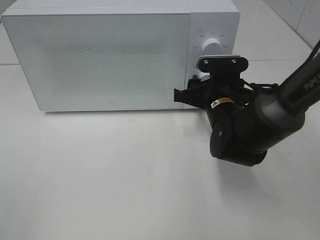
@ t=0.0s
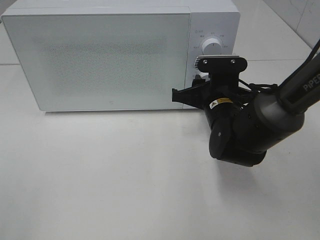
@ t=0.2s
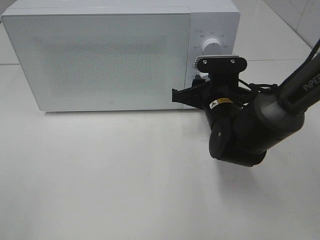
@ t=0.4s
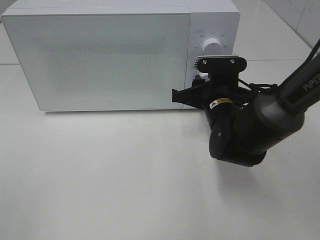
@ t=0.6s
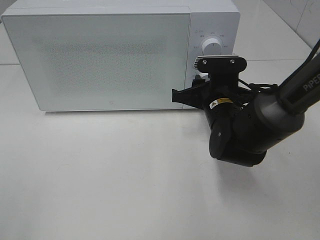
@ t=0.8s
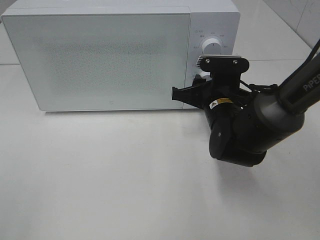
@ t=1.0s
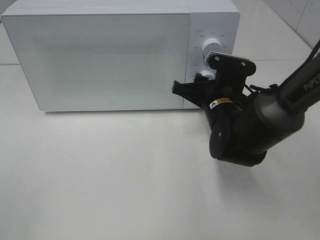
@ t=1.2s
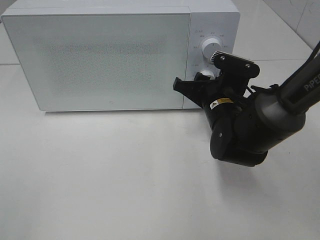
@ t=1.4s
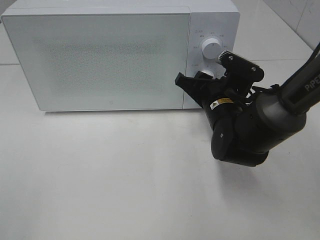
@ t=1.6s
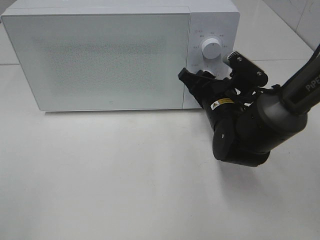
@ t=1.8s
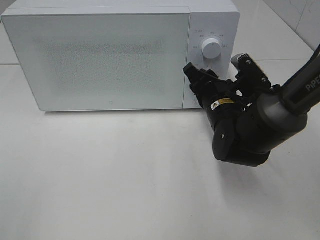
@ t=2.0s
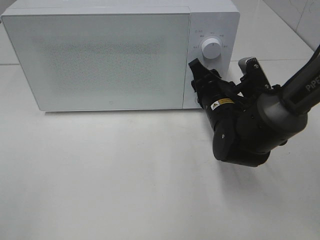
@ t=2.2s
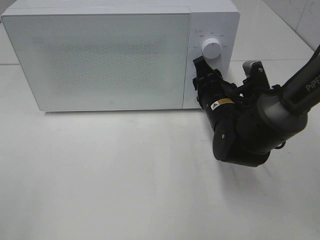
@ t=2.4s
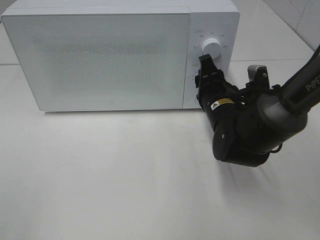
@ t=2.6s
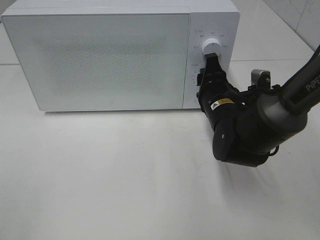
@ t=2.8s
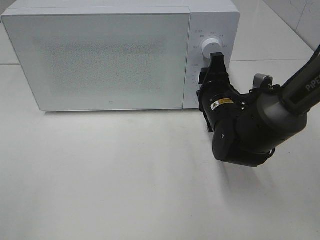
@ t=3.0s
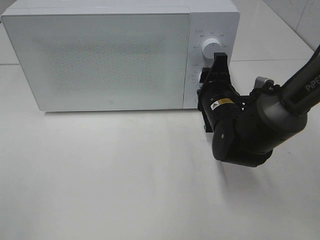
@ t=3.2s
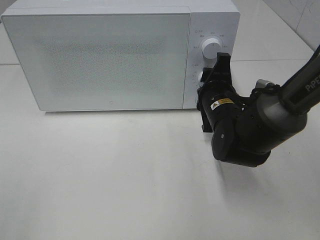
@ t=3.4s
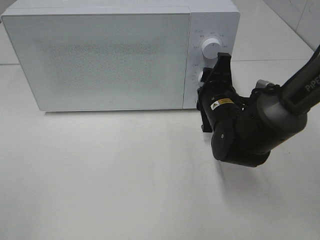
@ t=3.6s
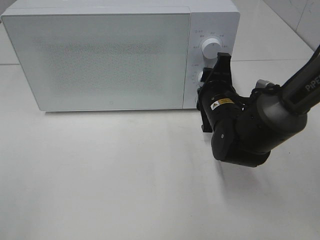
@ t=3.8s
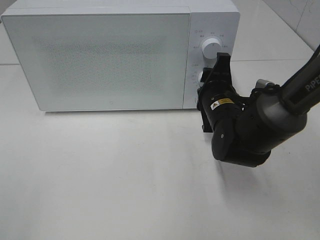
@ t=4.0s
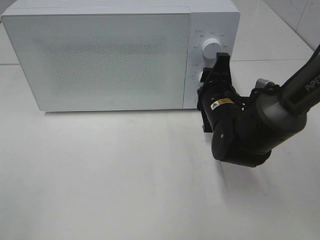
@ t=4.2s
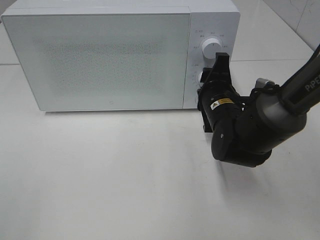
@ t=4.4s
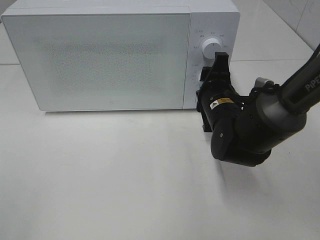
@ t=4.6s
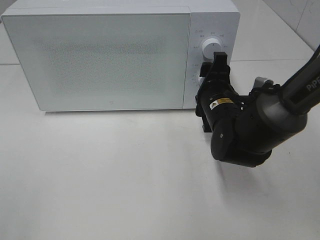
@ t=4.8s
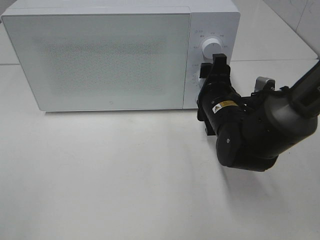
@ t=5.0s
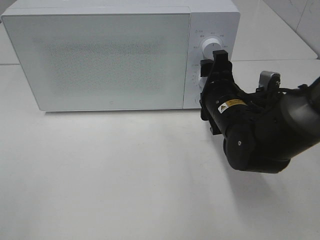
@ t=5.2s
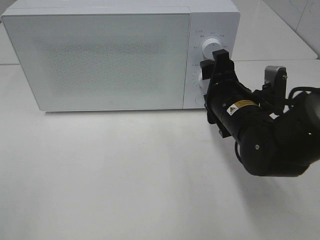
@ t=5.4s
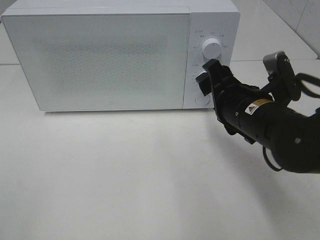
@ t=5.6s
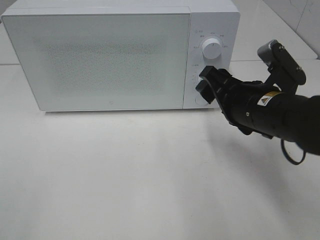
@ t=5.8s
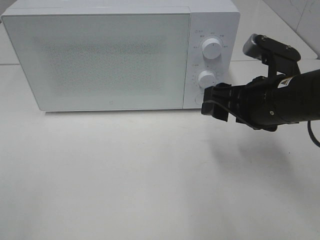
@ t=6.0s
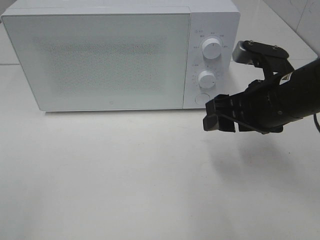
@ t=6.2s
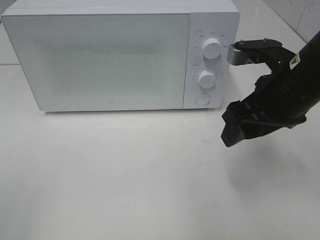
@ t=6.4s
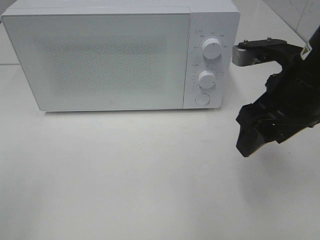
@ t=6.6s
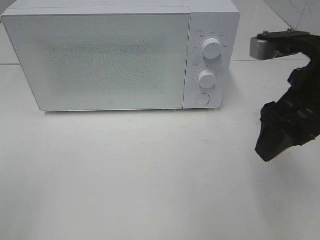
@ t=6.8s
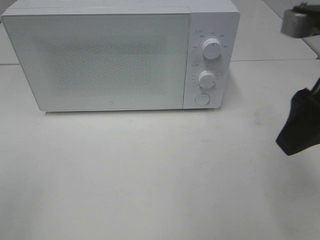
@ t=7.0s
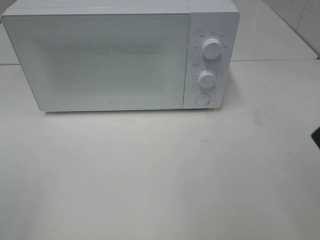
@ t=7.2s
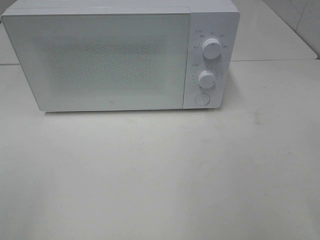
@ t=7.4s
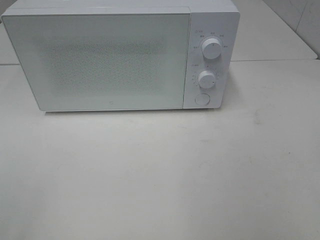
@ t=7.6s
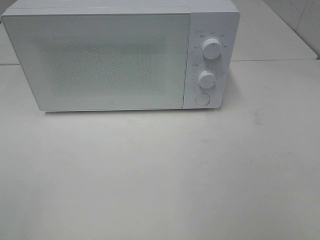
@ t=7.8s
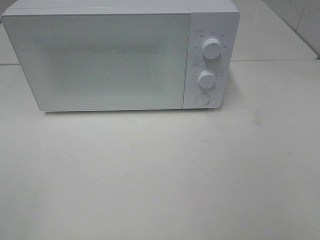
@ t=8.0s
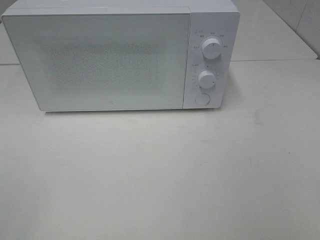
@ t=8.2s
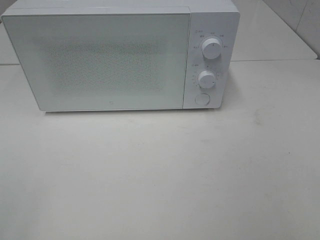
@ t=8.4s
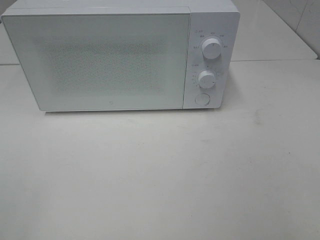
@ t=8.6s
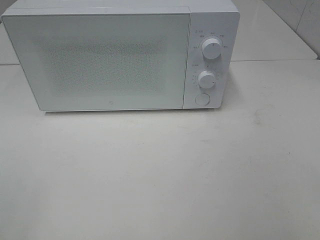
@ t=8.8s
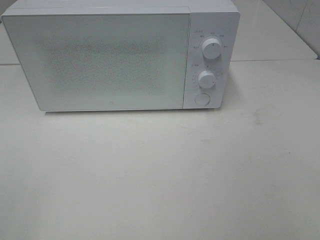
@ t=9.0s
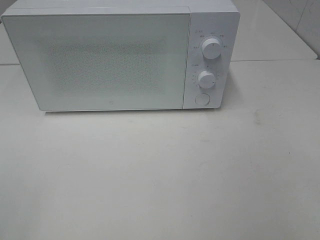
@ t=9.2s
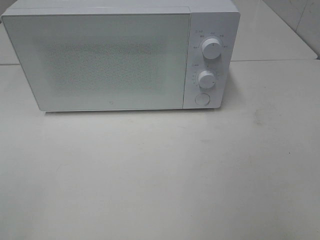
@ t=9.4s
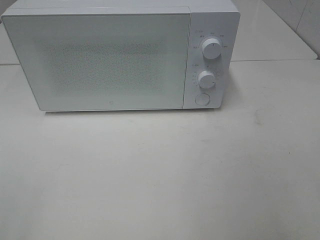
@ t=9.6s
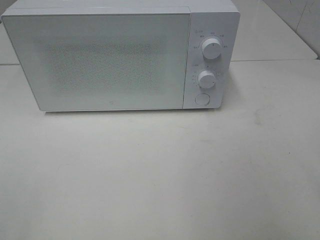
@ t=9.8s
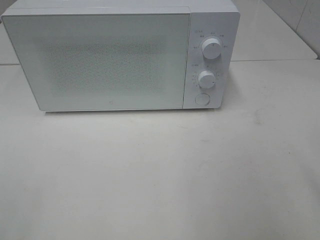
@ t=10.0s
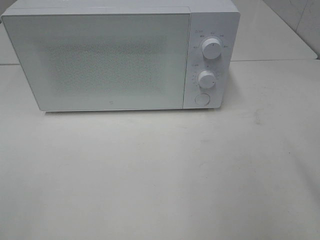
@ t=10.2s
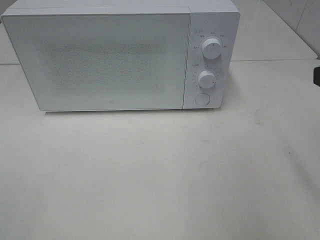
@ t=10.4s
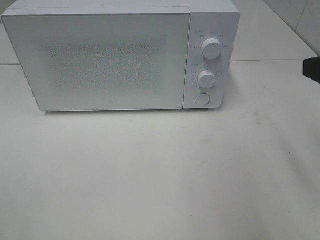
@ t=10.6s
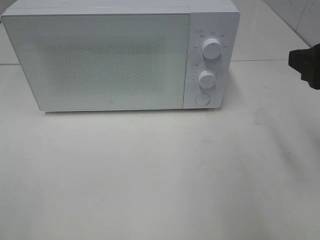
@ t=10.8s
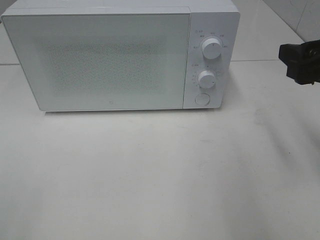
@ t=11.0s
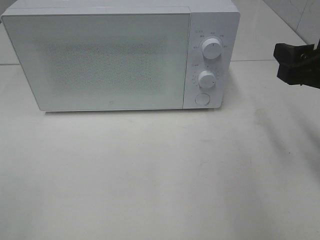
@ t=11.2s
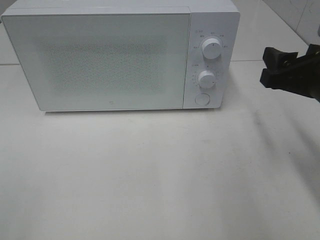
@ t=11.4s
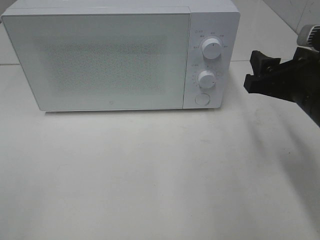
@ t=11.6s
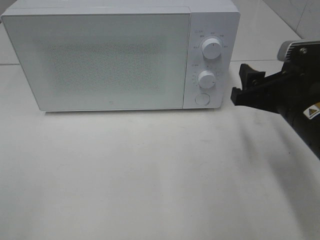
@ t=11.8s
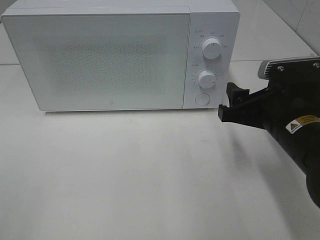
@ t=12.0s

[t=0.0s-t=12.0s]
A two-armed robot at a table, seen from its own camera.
Task of the whole recording: Heat the burger.
Step, t=0.0s to t=4.8s: Right hand: twist timer button.
t=3.0s to t=4.4s: There are only small adjustments of the grippers.
t=4.4s to t=6.0s: The right gripper goes some 10 cm upward and backward.
t=6.0s to t=7.6s: The right gripper moves backward, upward and to the right, roughly 25 cm.
t=10.4s to t=12.0s: The right gripper travels downward, to the left and forward by roughly 15 cm.

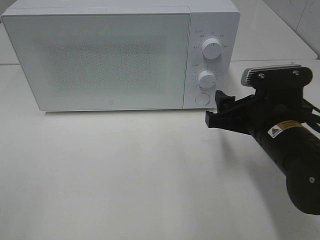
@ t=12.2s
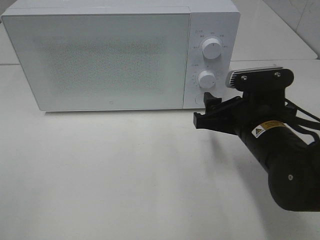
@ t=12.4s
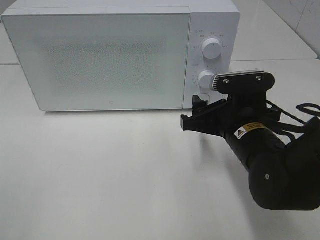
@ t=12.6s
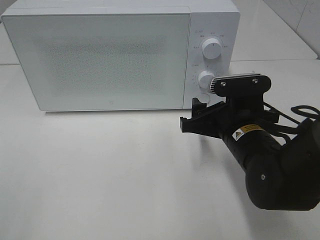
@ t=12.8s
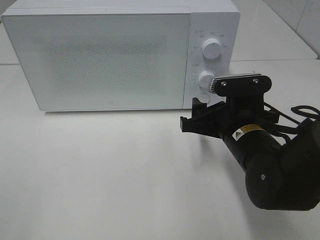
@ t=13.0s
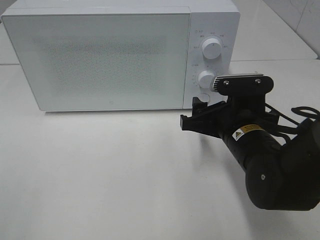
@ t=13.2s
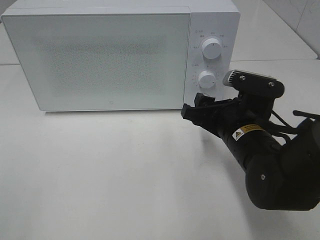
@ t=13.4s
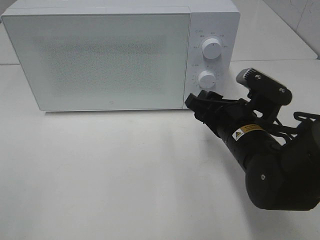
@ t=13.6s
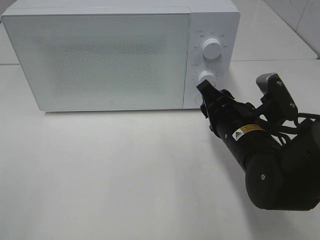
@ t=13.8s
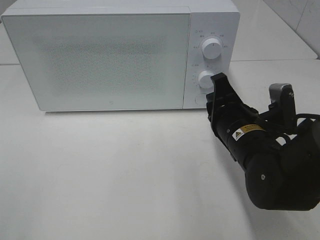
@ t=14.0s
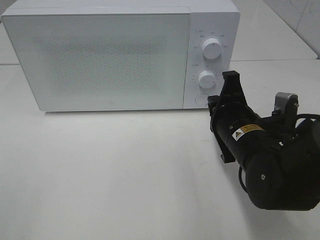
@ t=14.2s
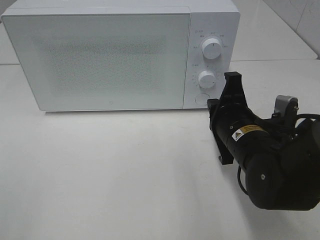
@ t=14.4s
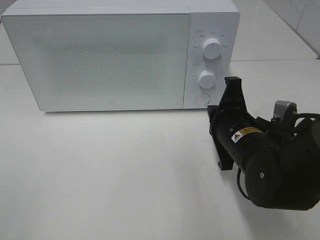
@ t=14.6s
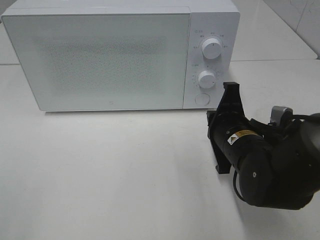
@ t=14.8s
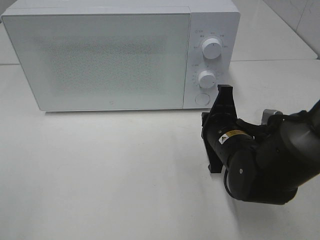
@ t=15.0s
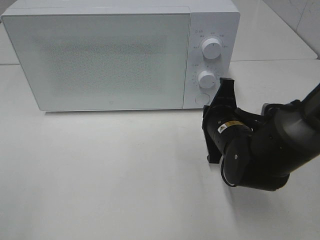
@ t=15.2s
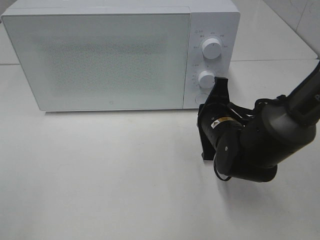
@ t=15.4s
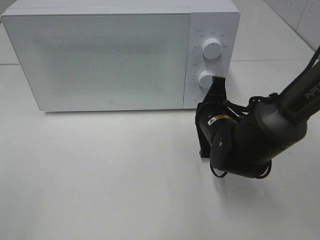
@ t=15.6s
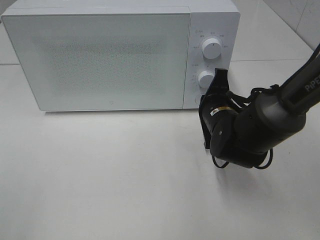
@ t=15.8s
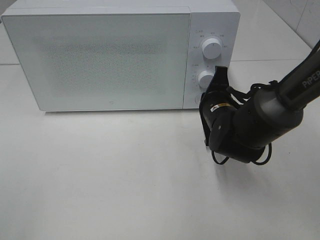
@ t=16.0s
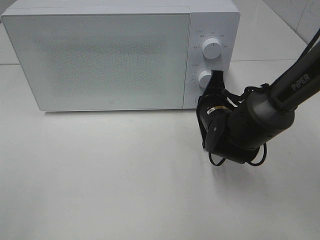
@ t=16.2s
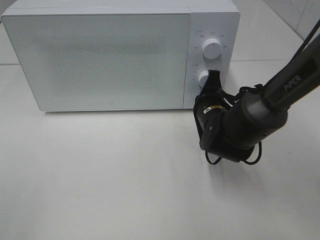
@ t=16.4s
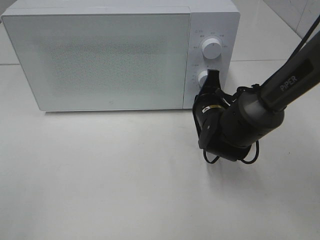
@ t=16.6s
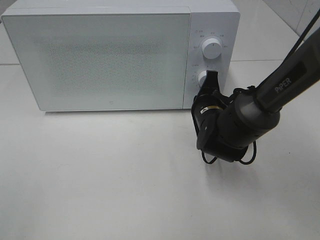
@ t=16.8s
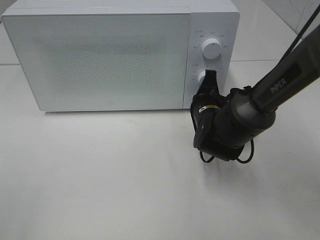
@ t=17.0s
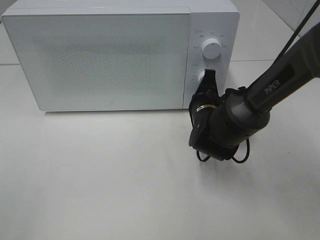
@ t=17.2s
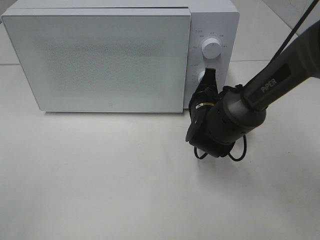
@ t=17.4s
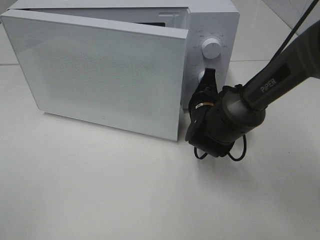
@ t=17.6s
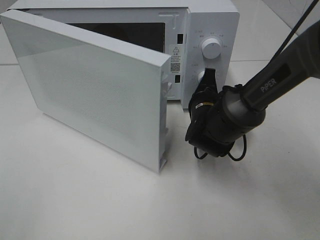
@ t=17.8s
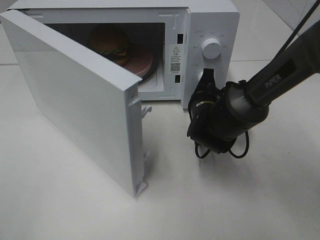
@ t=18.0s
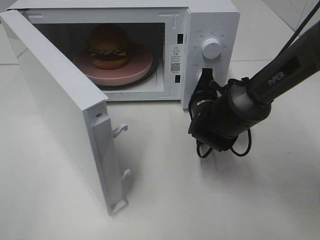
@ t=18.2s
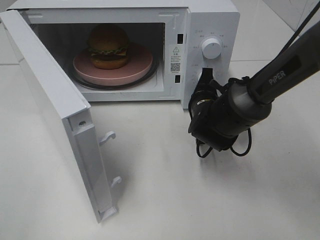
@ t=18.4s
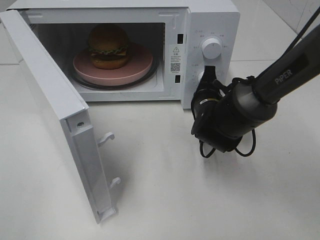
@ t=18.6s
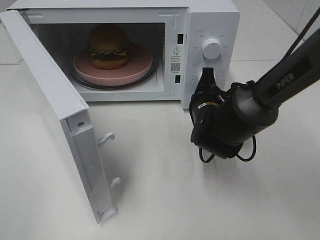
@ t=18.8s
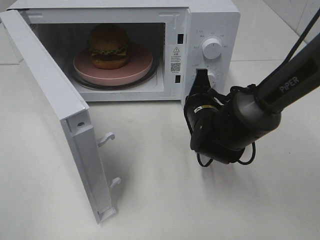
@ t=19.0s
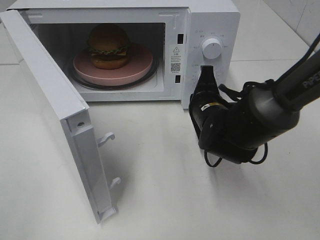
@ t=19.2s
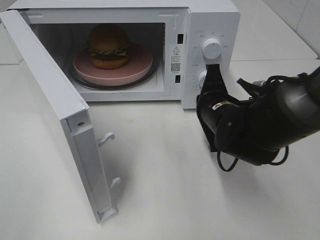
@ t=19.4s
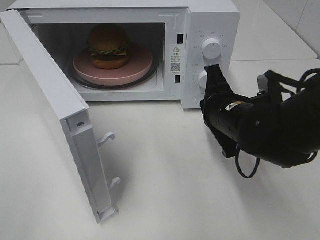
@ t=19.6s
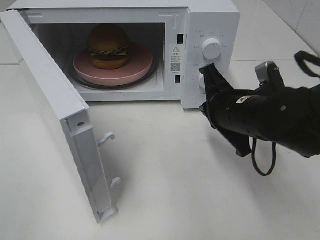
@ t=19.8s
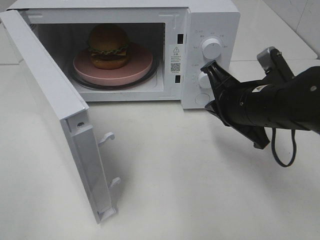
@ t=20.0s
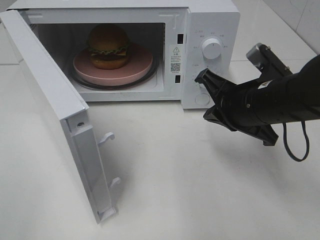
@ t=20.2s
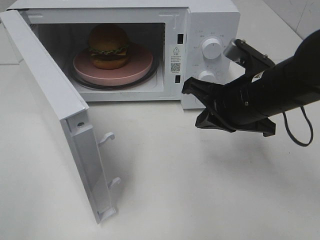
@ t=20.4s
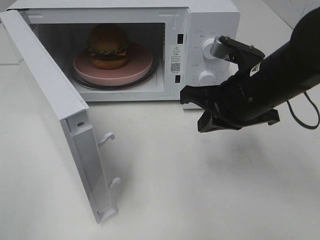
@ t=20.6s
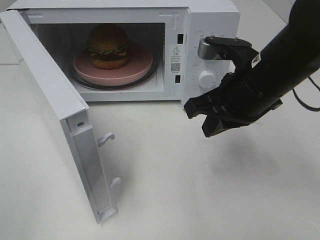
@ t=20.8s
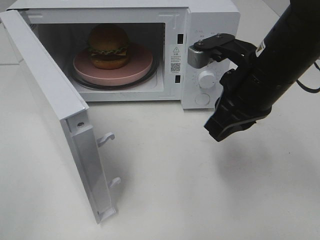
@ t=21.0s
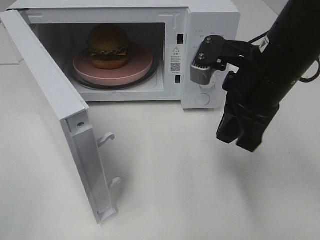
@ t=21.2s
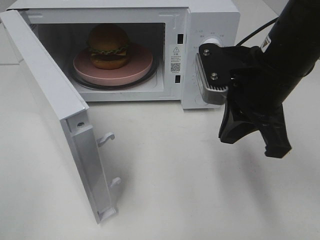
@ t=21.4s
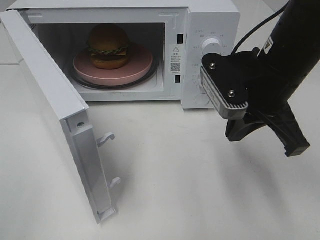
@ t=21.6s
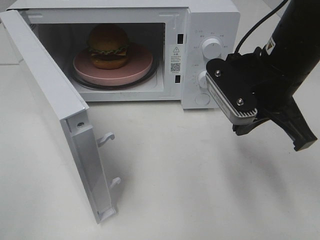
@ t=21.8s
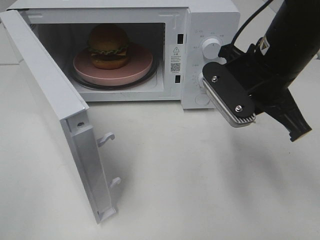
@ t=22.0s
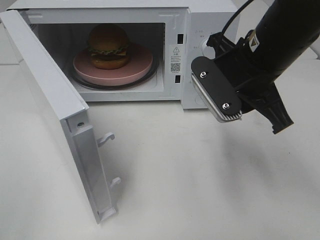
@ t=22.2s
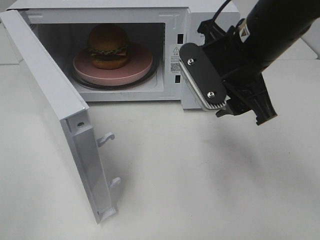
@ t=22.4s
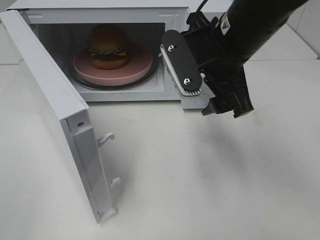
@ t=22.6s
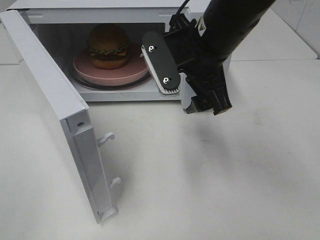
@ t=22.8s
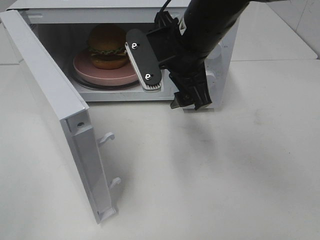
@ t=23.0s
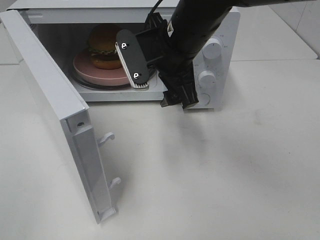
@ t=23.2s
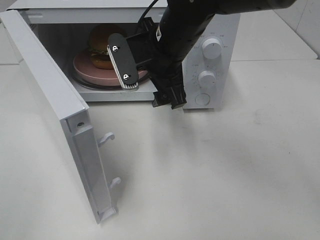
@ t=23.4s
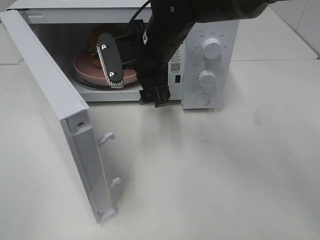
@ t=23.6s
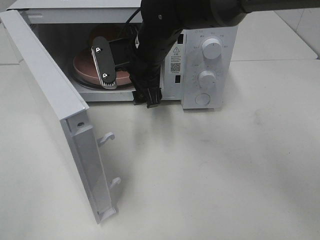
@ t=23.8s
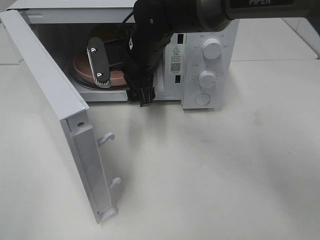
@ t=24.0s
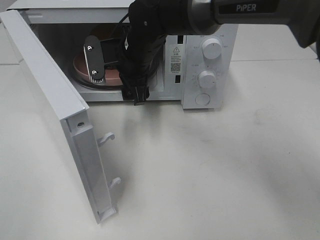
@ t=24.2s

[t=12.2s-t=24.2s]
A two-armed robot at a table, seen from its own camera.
Task of the whole recording: Heat the burger.
Step, t=12.2s to t=19.6s: Right hand: press the switch.
t=13.8s to t=15.2s: The right gripper closes its fingers.
t=15.2s to t=16.6s: The right gripper is displaced forward by about 5 cm.
t=18.2s to t=19.8s: The right gripper is displaced backward and upward by about 10 cm.
t=19.8s to t=21.2s: The right gripper moves upward, some 10 cm.
t=21.2s to t=22.6s: The right gripper shifts by about 5 cm, and opens its fingers.
t=22.6s to t=24.2s: The right gripper shifts some 20 cm to the left, forward and downward.
